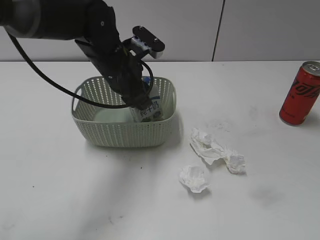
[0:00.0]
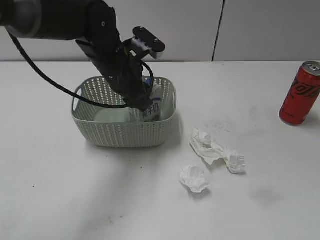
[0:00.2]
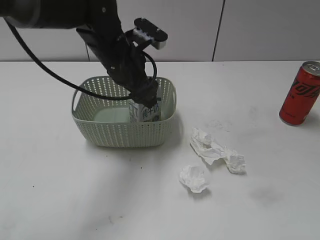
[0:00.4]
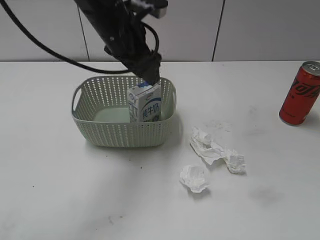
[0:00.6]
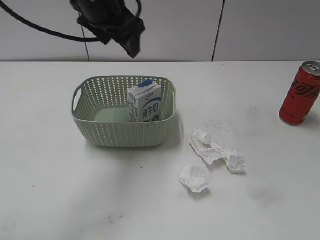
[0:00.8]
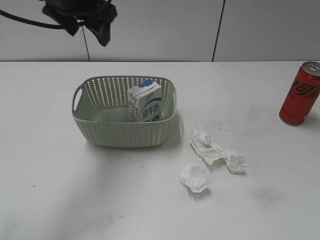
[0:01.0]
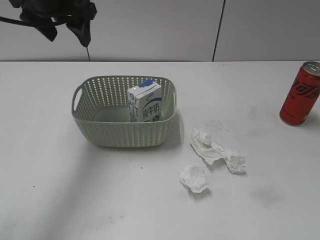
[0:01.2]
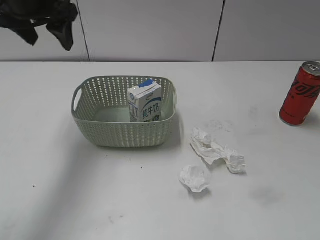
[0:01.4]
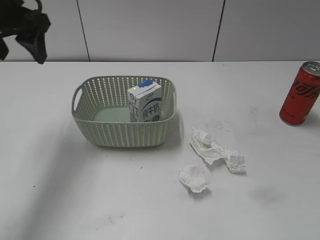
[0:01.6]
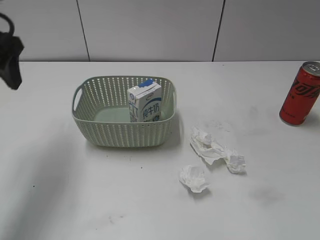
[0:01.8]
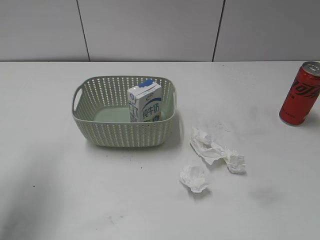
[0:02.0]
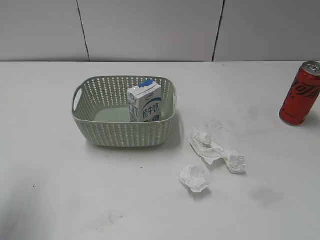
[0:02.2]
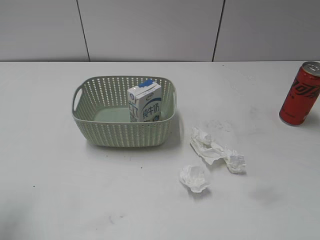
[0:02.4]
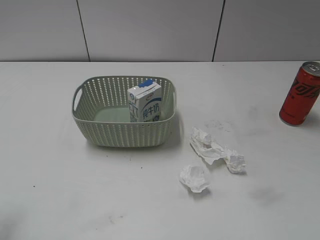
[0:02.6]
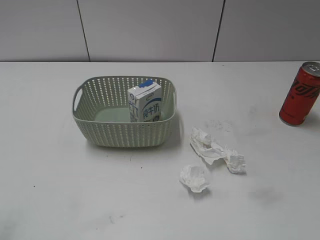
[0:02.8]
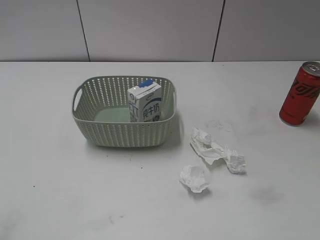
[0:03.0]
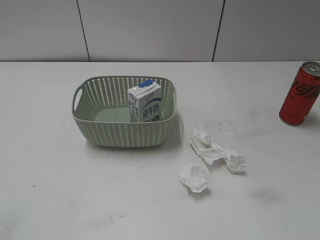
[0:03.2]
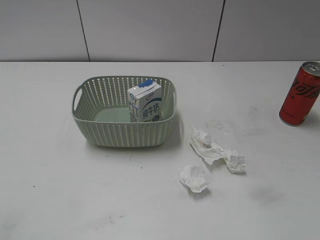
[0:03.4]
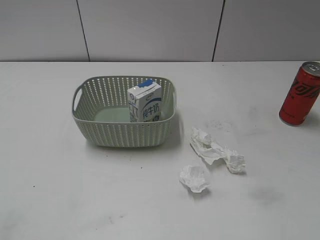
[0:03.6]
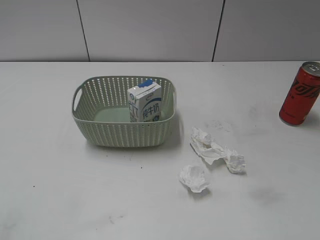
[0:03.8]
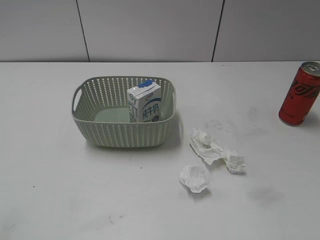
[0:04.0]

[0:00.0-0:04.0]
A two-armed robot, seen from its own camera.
0:00.0 to 0:01.4: The left gripper moves upward and to the left, about 20 cm, and opens its fingers.
0:01.4 to 0:02.6: The left gripper shifts about 30 cm backward and to the left.
